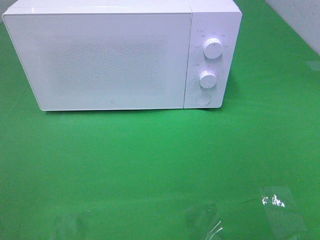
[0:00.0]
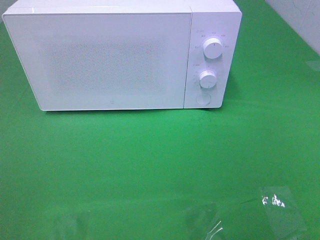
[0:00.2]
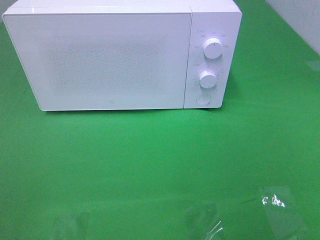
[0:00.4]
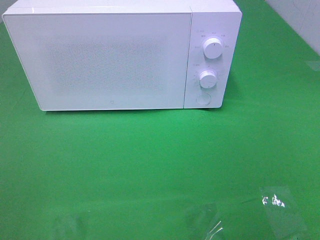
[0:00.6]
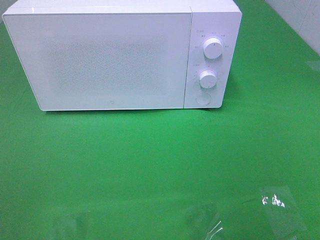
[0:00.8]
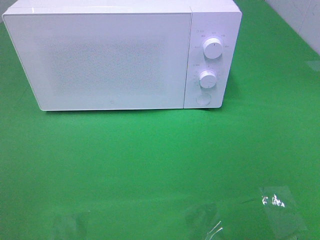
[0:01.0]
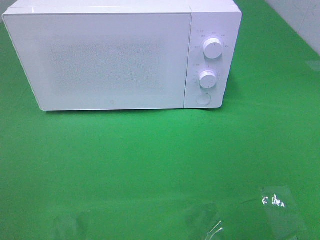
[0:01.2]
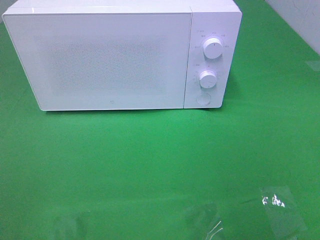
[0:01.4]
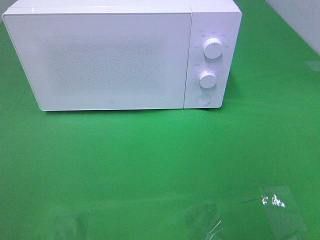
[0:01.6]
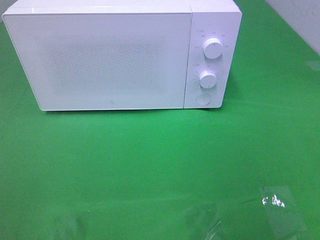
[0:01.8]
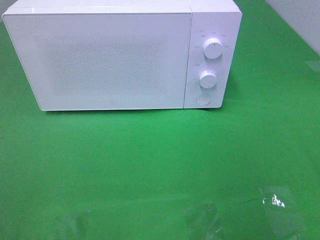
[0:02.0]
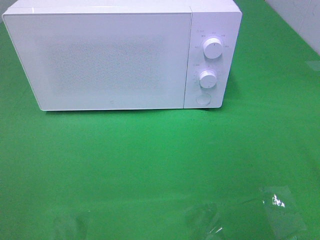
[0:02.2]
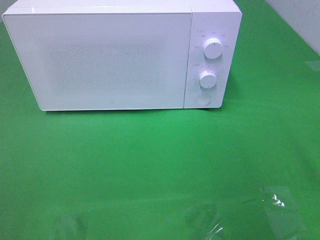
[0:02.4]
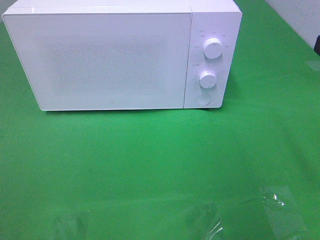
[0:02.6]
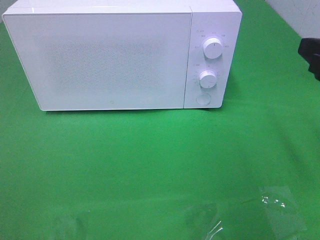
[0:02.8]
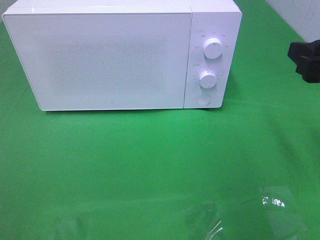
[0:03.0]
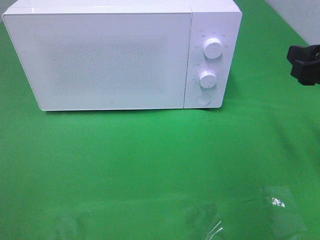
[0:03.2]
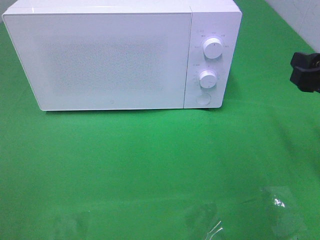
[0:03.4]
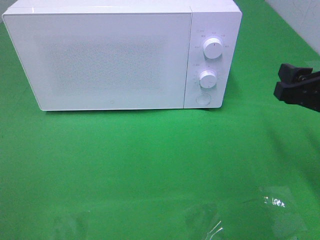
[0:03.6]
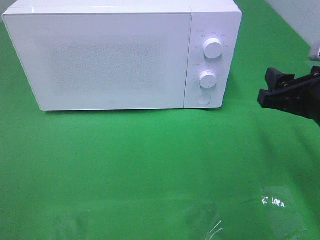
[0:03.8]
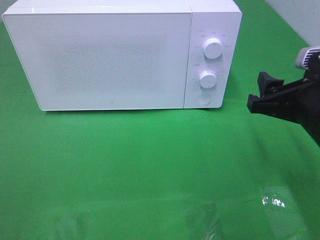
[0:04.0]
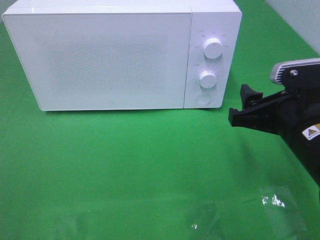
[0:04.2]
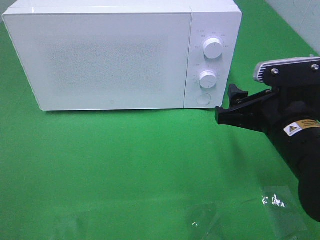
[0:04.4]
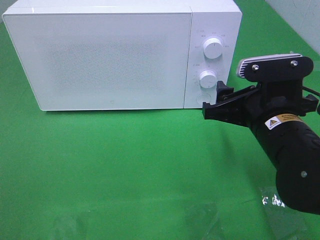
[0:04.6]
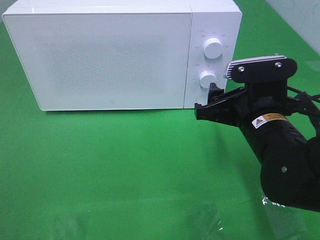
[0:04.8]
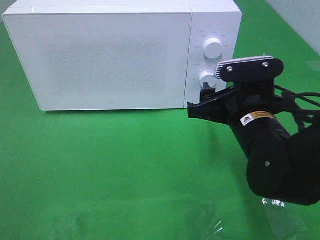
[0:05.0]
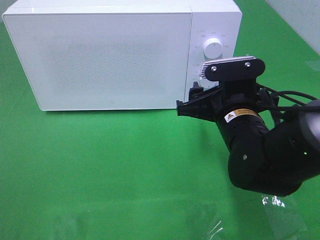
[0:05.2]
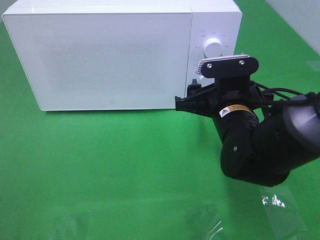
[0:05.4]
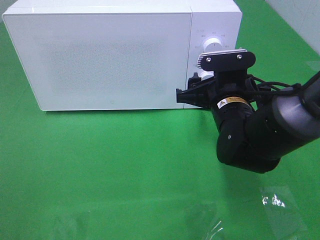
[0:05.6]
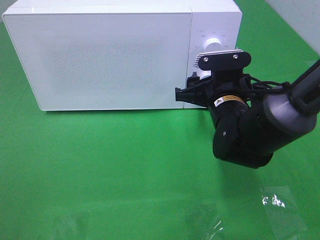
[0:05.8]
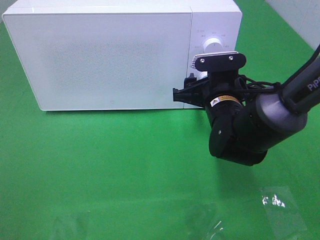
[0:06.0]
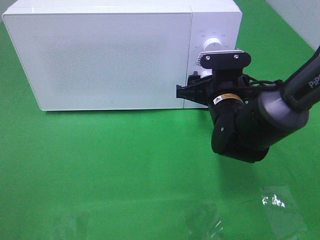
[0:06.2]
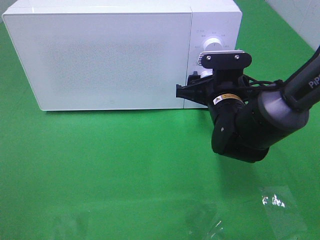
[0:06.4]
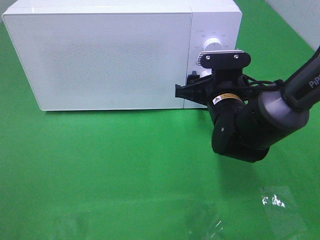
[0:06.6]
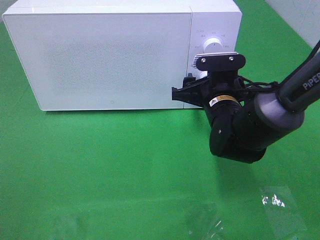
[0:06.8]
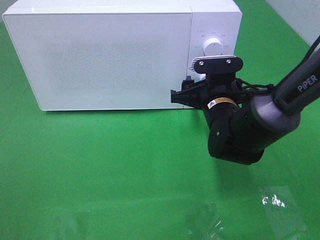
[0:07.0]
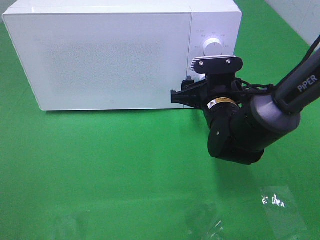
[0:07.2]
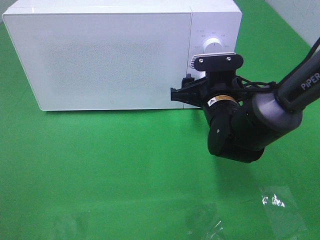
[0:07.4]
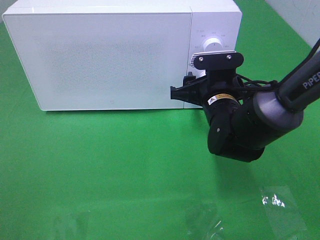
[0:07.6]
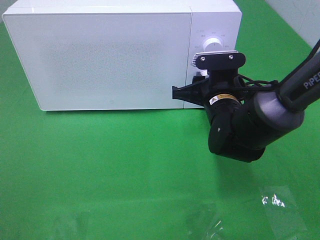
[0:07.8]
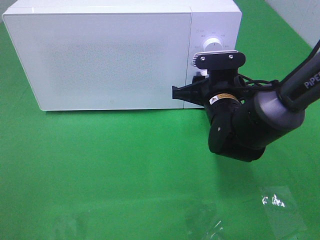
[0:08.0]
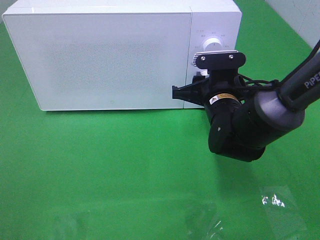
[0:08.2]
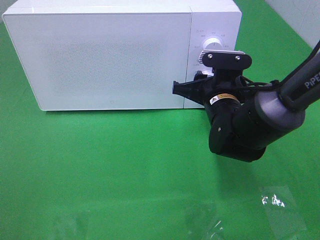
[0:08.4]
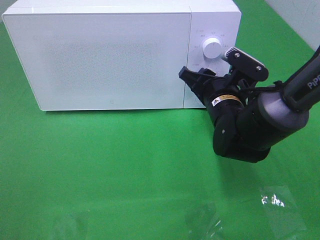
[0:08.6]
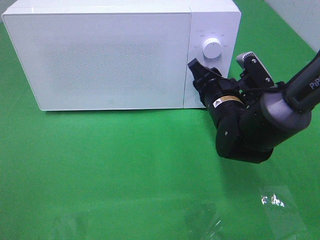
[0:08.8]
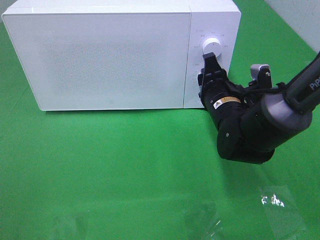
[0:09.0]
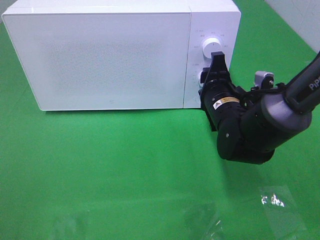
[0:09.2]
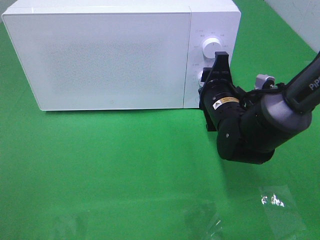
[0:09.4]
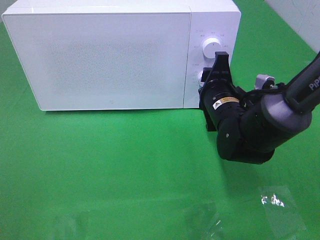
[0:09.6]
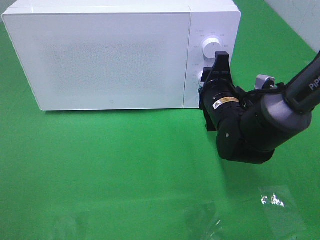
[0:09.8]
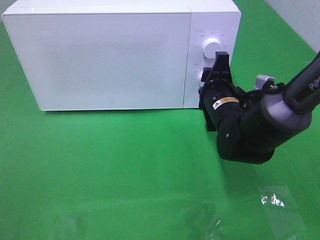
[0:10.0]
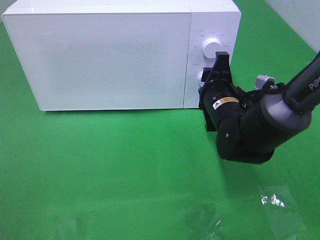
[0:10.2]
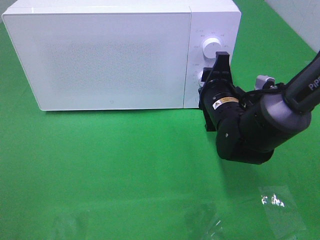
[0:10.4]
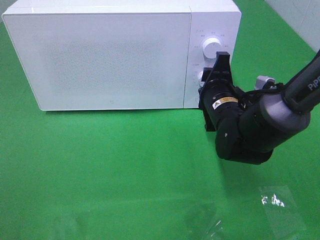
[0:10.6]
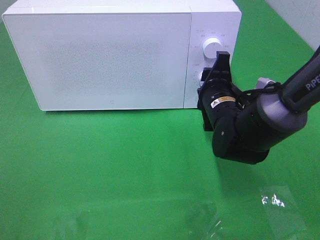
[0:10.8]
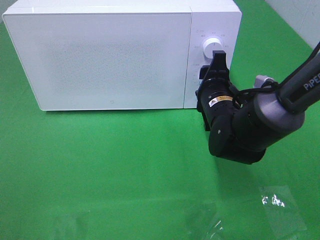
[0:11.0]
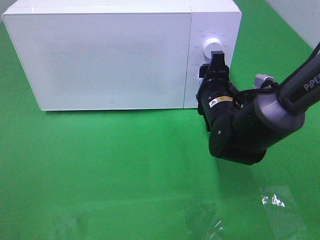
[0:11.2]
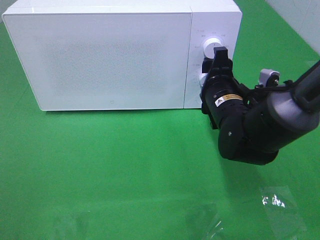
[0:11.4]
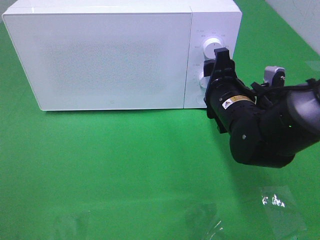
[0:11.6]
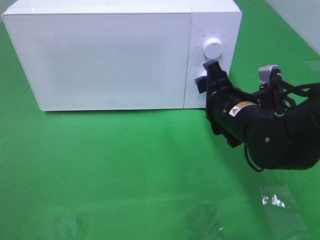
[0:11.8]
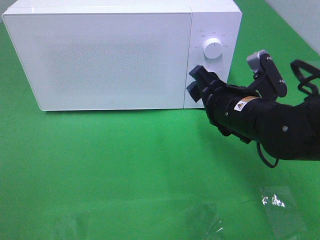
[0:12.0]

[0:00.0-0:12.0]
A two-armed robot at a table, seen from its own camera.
Task of the whole recording: Heat the burger.
Step, 0:00.0 to 0:11.2: Right hand: twist timer button.
0:01.6 to 0:03.0: The right gripper travels forward by roughly 15 cm.
0:03.0 to 0:04.4: The right gripper heads to the left and downward, covering approximately 10 cm.
0:04.4 to 0:06.0: The right gripper shifts about 15 cm forward, to the left and downward.
0:06.0 to 0:07.6: The two grippers keep their place.
0:09.0 to 0:10.4: The grippers make only small movements.
0:10.4 to 0:12.0: The right gripper travels backward by approximately 5 cm.

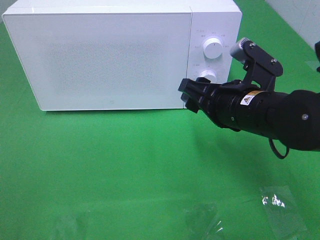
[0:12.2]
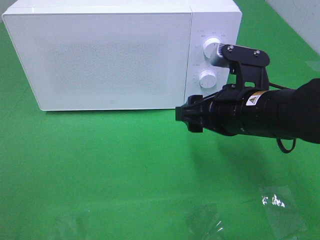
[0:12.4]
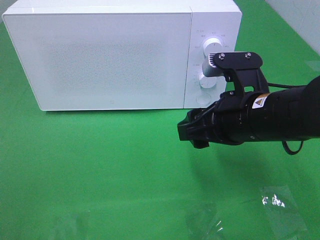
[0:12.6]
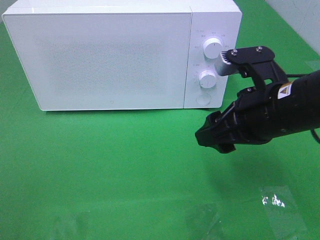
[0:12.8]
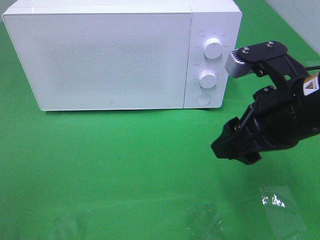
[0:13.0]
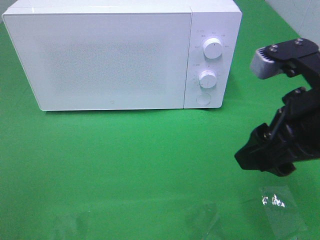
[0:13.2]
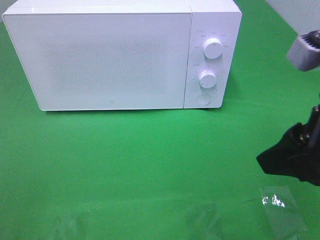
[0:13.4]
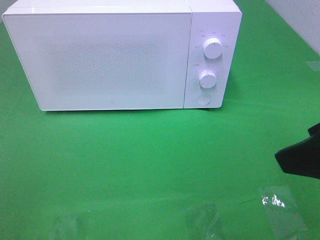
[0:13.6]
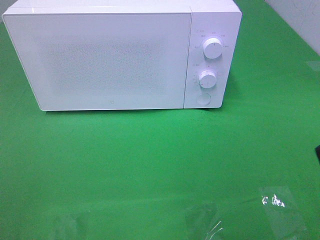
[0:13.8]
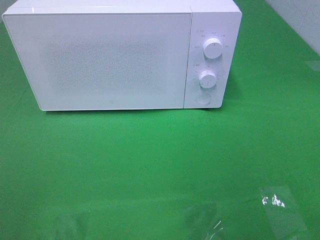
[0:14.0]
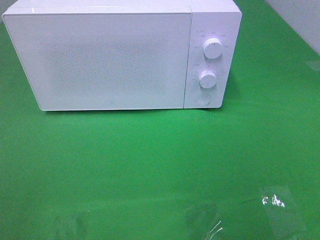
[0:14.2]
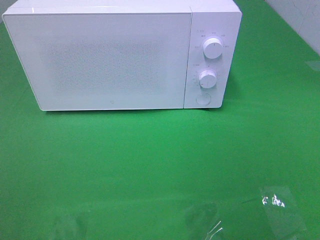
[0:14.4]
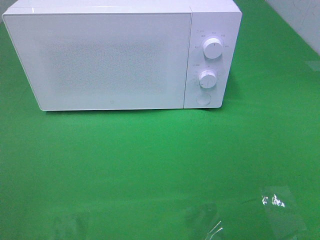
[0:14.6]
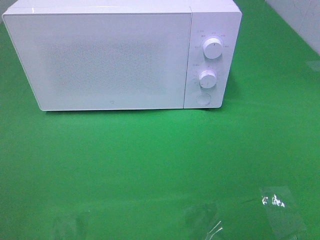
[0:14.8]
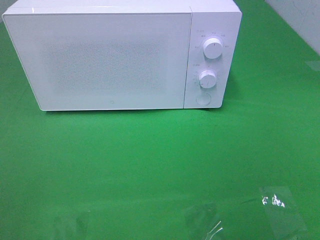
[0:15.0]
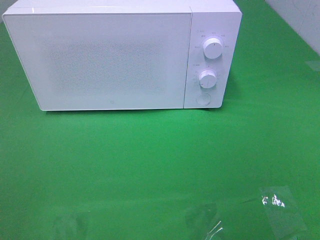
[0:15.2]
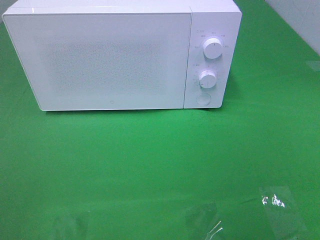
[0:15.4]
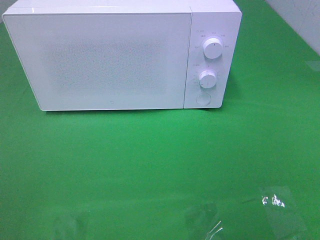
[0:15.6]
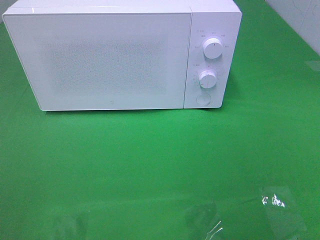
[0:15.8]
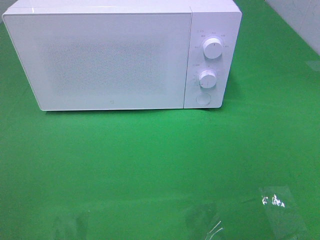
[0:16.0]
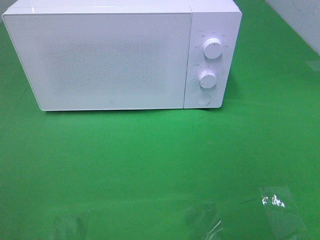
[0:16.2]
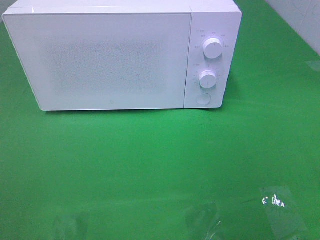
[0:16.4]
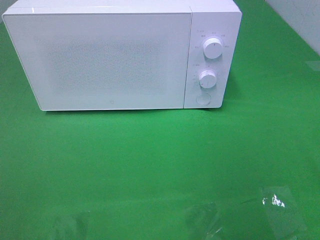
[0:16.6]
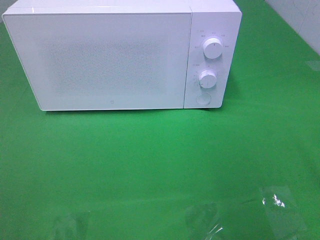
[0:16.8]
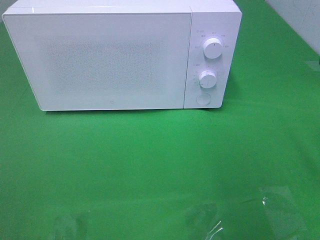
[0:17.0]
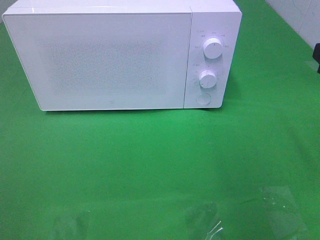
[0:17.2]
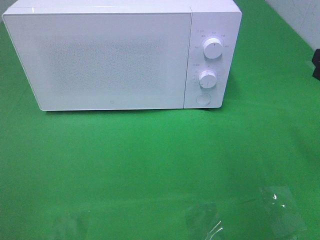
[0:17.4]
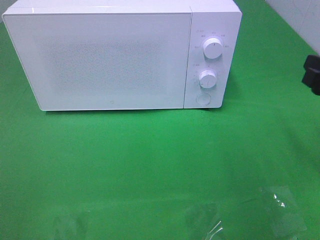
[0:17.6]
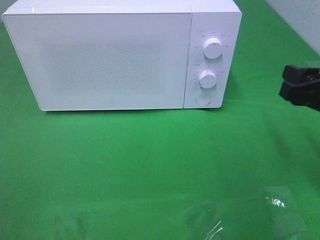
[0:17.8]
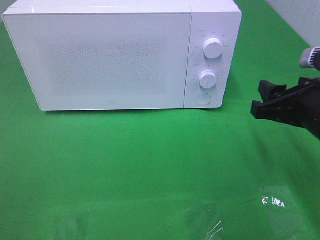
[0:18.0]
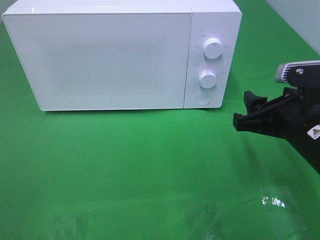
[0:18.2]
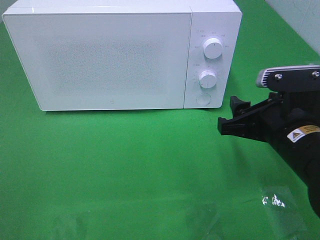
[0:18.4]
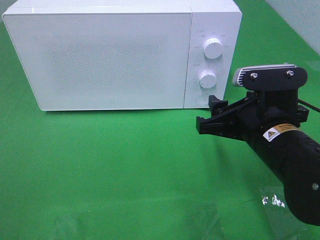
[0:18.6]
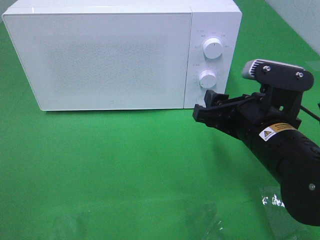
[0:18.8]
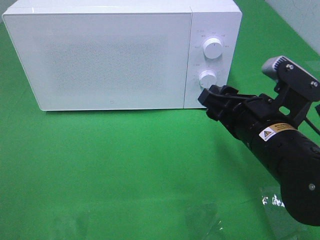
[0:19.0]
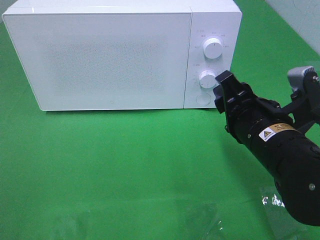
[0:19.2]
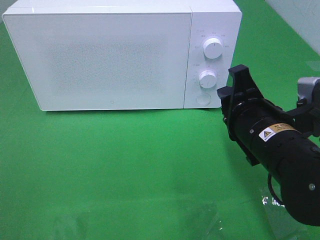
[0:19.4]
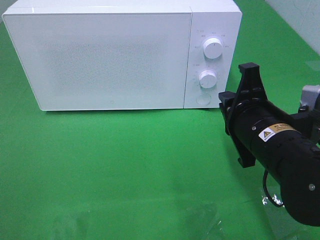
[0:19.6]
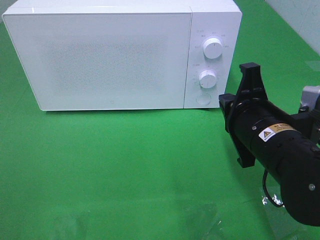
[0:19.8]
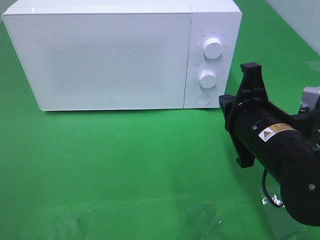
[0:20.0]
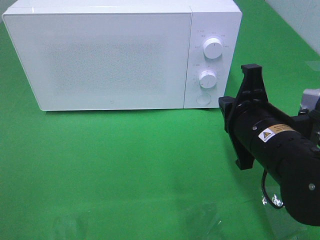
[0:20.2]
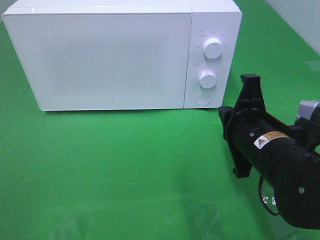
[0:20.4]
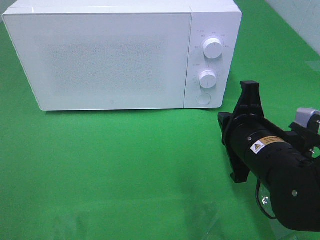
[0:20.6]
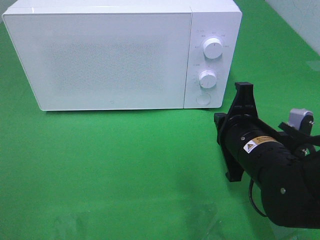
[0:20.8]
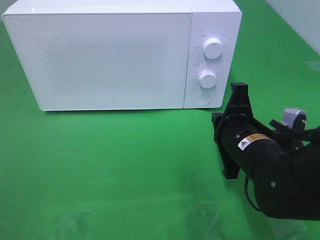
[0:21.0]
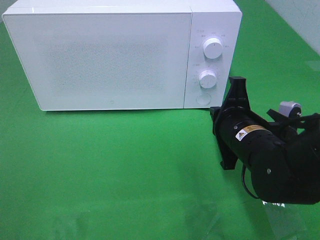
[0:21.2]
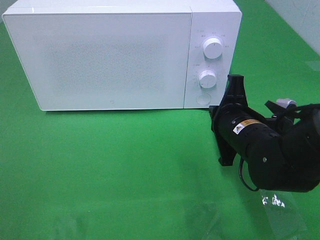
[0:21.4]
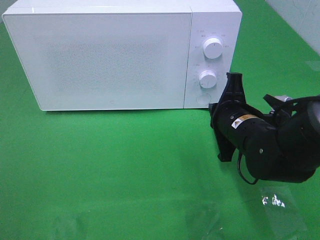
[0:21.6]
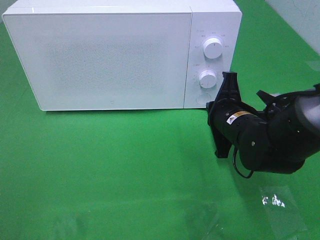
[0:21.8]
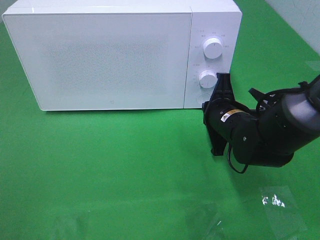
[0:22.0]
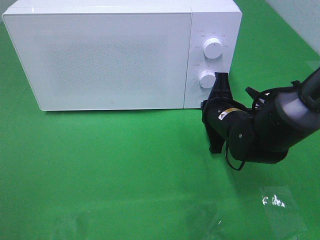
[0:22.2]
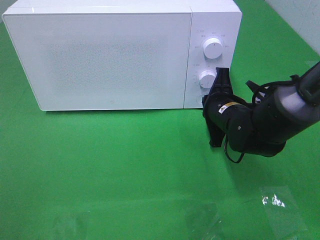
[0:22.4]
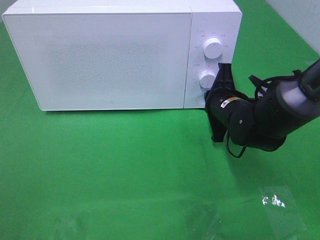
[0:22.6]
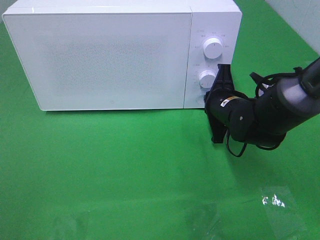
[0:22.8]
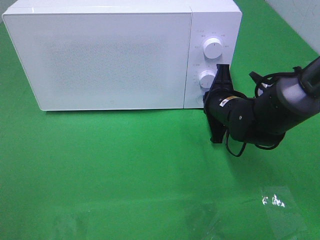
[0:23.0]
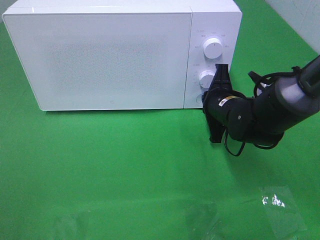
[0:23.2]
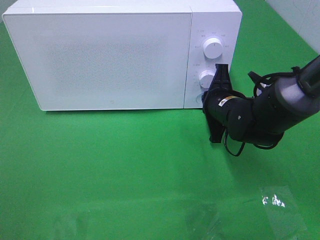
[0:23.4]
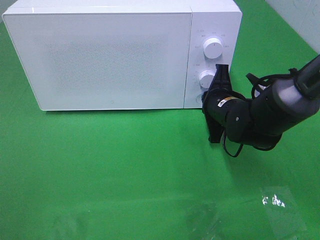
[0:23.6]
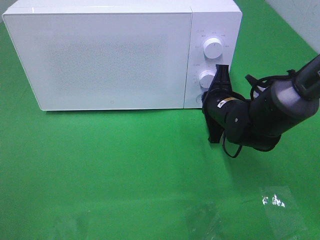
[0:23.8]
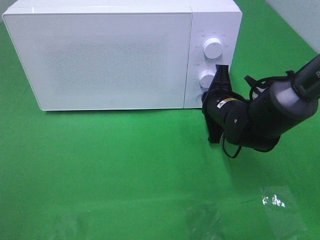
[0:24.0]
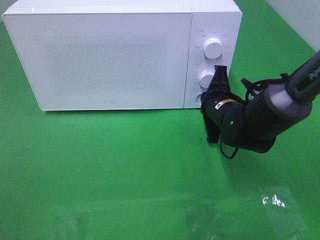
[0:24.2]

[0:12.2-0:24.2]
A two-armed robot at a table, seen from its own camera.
Task of the whole recording: Heat the burger.
0:12.2 to 0:13.8: The right gripper travels backward, upward and to the right by about 25 cm.
0:16.6 to 0:18.2: The right gripper travels downward, forward and to the left by approximately 15 cm.
0:18.2 to 0:19.8: The right gripper is displaced to the left by about 5 cm, and closes up.
0:19.8 to 0:21.2: The right gripper moves approximately 5 cm.
0:21.2 to 0:22.6: The right gripper shifts approximately 10 cm forward.
0:22.6 to 0:24.2: Neither gripper changes place.
